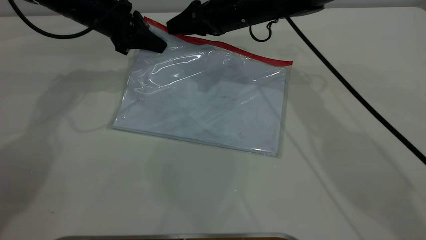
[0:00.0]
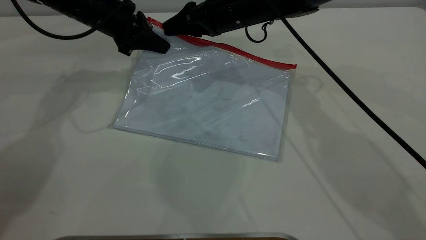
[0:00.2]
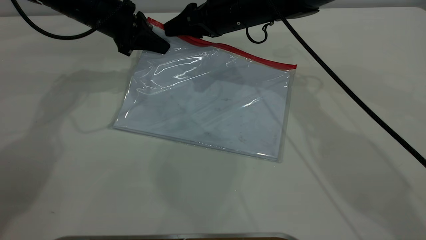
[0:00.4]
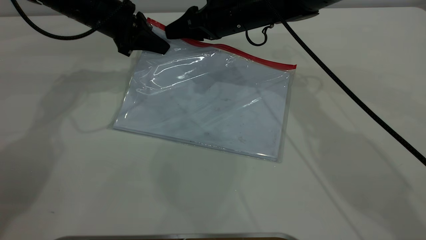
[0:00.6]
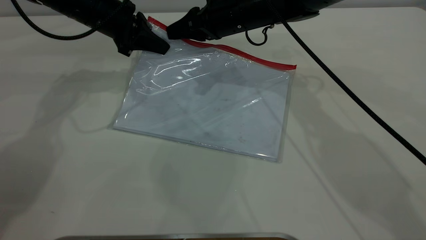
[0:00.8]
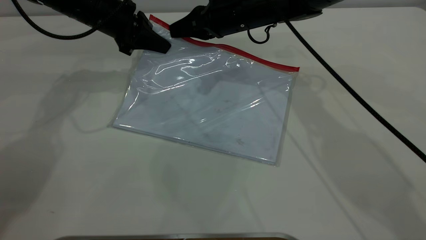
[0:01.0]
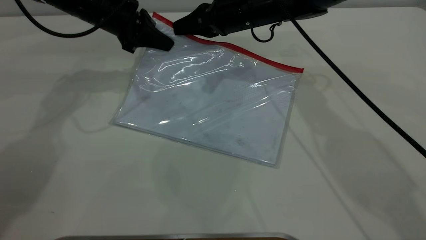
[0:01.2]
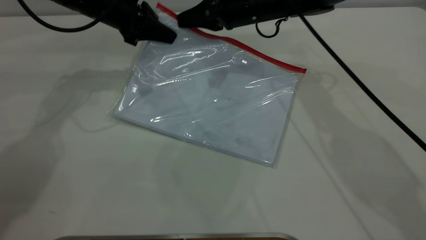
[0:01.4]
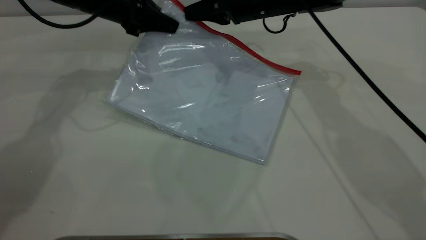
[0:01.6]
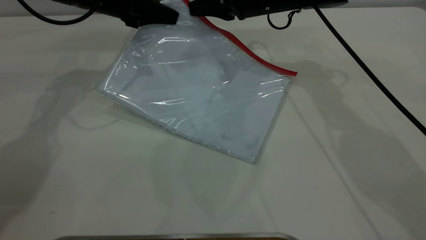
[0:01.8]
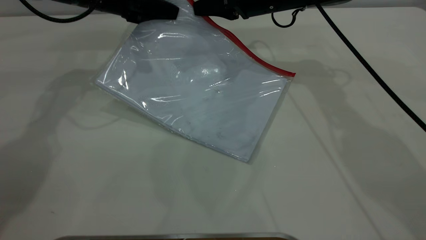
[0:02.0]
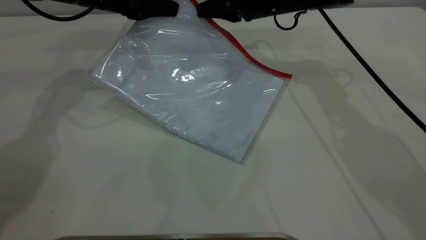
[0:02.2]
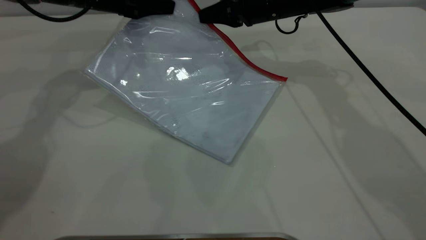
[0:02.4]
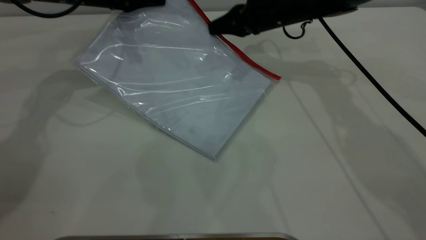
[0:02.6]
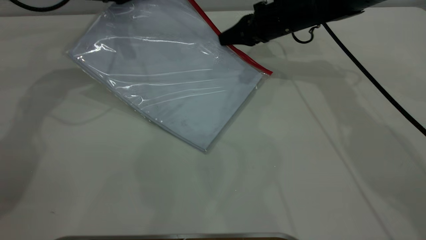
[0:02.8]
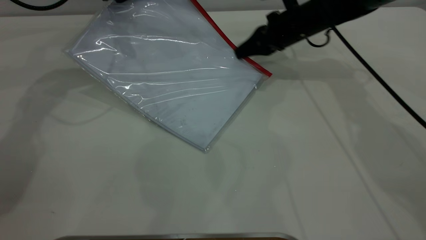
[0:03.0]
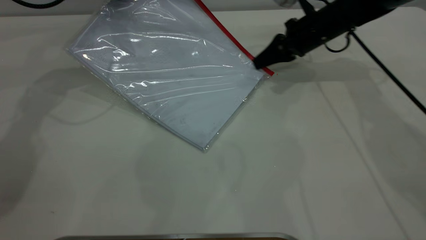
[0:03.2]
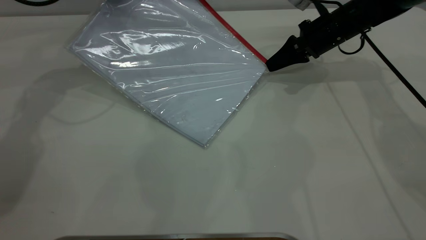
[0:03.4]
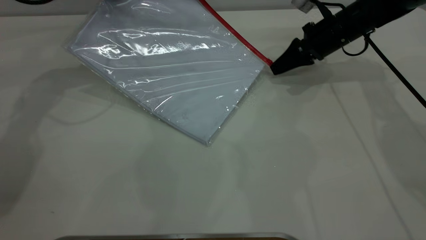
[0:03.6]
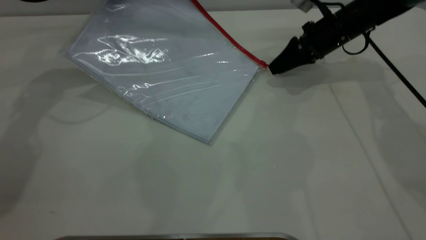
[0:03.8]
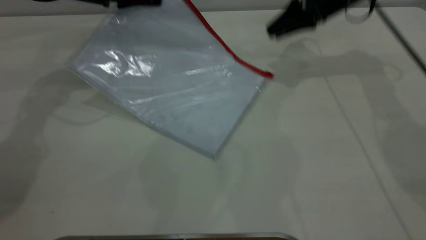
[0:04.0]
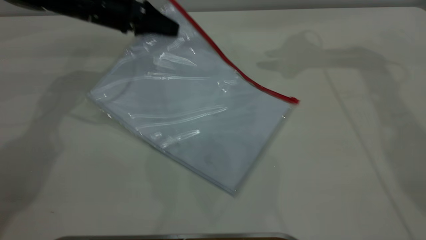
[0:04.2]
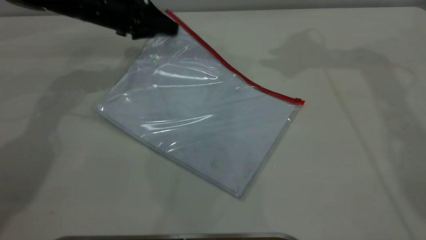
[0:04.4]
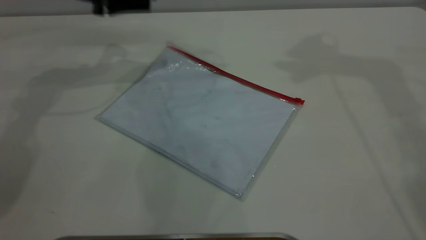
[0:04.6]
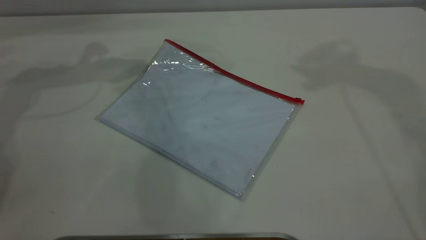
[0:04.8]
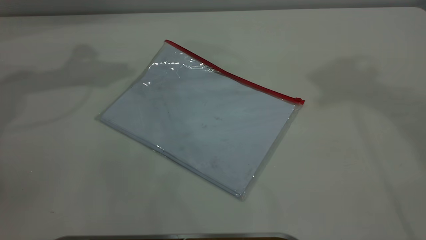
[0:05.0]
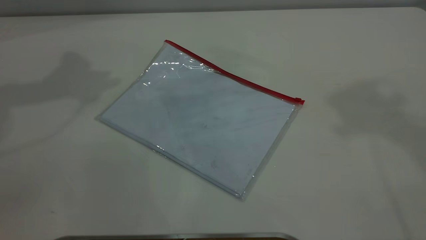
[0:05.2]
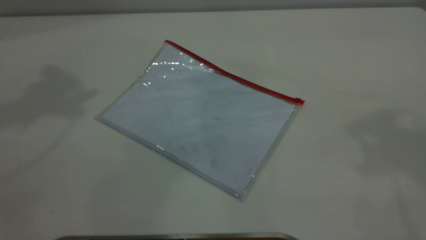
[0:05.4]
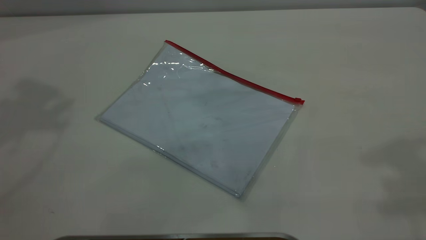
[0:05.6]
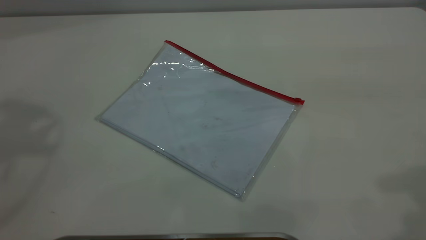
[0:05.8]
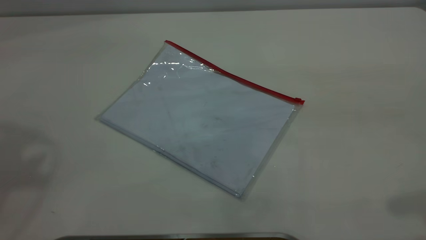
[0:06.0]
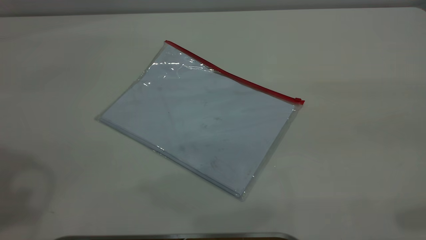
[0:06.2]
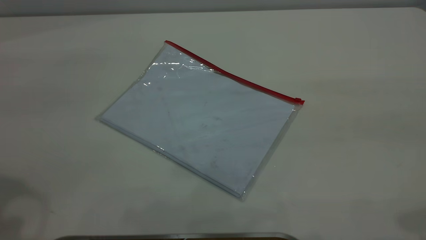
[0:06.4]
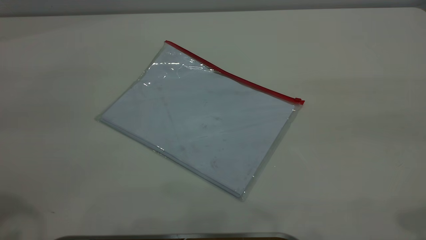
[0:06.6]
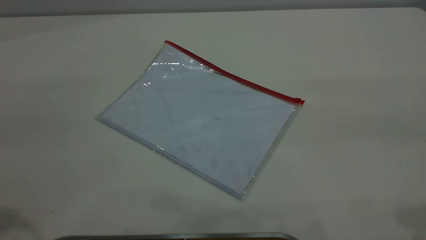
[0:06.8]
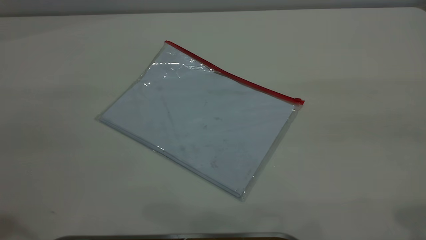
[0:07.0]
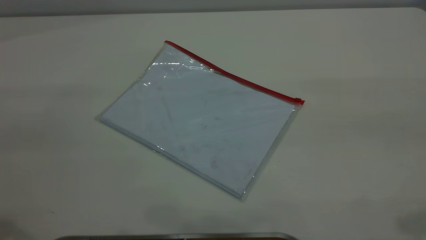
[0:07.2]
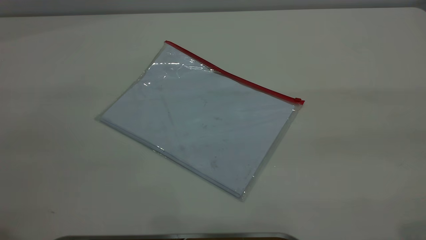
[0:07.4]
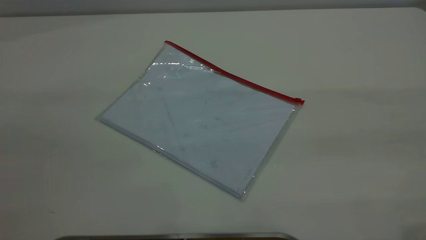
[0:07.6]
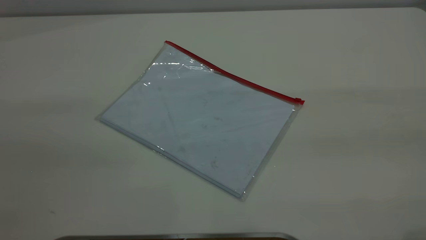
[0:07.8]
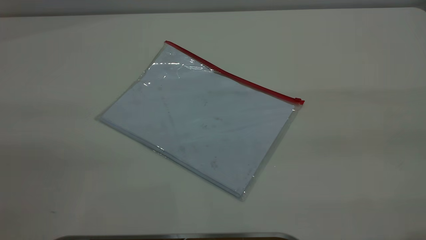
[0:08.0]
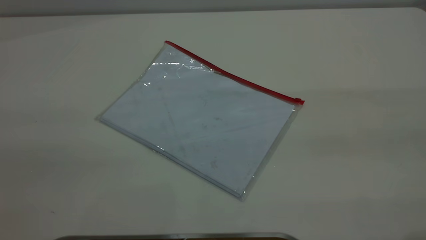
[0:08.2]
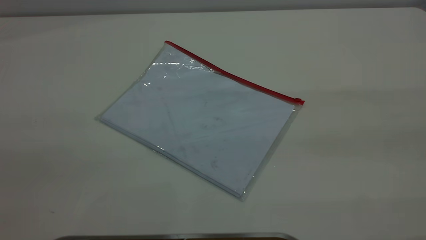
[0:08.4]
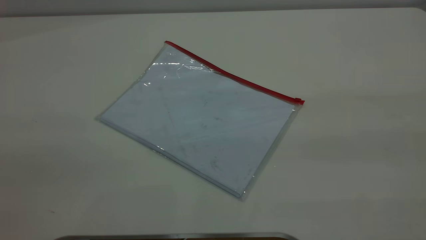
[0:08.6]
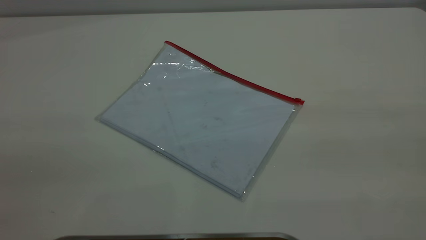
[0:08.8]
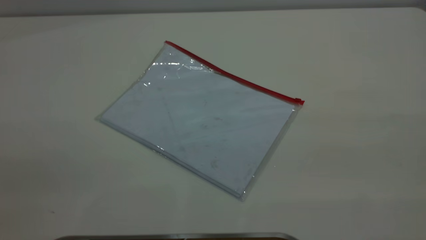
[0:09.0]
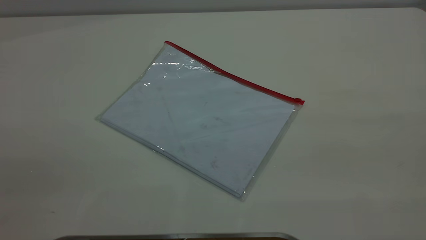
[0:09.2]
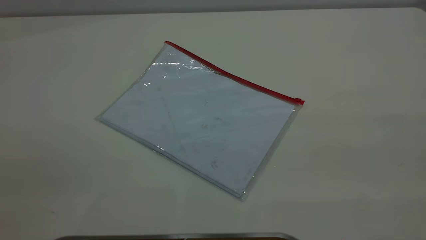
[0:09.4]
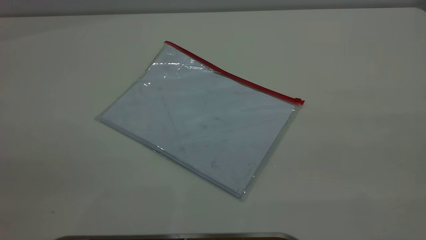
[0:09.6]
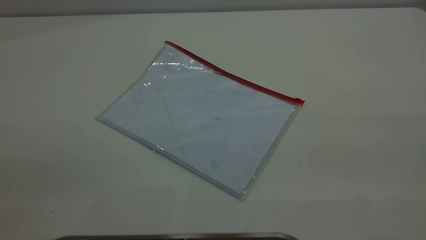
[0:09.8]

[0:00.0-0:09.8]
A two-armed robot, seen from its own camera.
Step, 0:00.0 to 0:03.8: Pulling up the zipper on the transparent plastic bag with the right gripper to close it.
Step, 0:04.0 to 0:04.6: Place the transparent plastic bag.
0:00.0 to 0:01.4: The right gripper closes up.
0:01.4 to 0:02.8: The right gripper is displaced to the right by some 5 cm.
0:02.8 to 0:04.2: The right gripper goes approximately 20 cm upward and to the right, and opens up. The left gripper changes place by about 5 cm.
0:04.2 to 0:05.6: The right gripper travels backward and upward by roughly 35 cm. Meanwhile the left gripper shifts approximately 40 cm upward, and opens up.

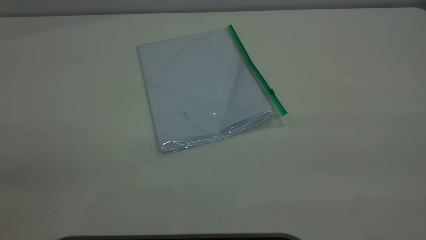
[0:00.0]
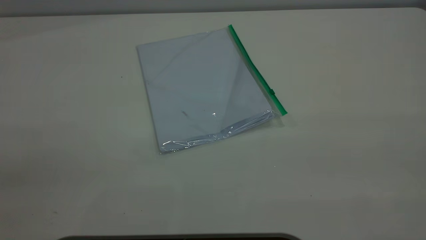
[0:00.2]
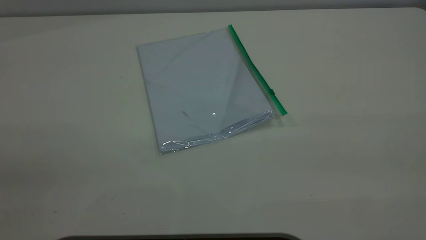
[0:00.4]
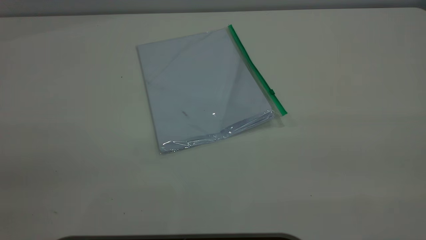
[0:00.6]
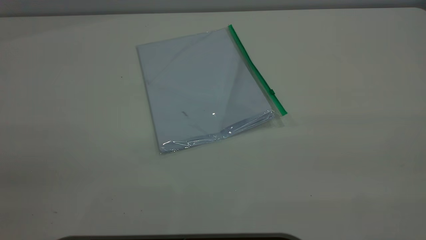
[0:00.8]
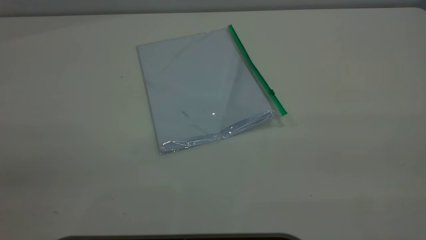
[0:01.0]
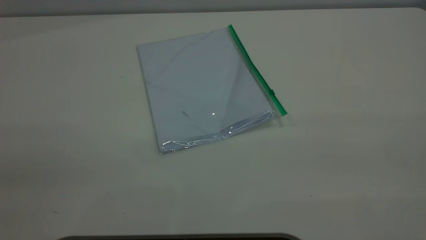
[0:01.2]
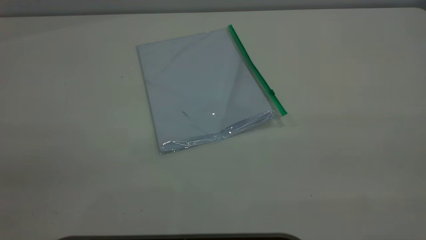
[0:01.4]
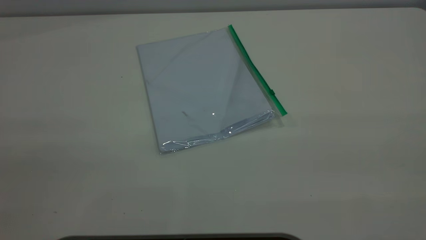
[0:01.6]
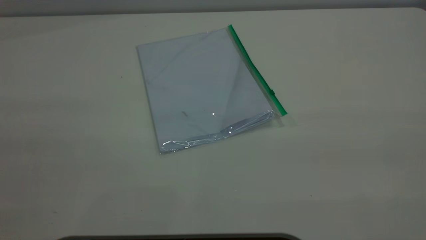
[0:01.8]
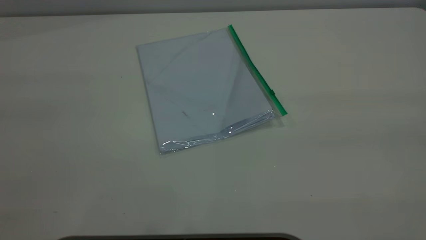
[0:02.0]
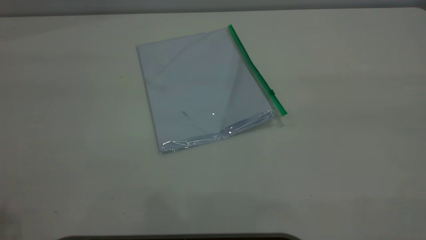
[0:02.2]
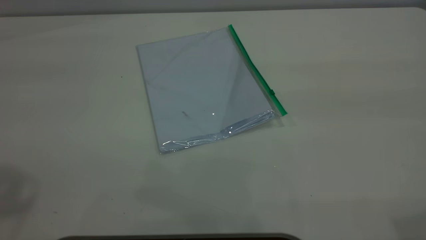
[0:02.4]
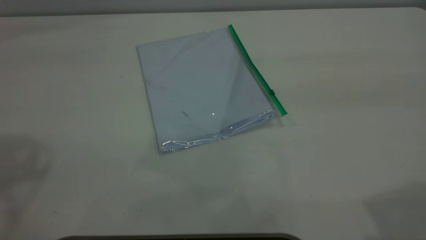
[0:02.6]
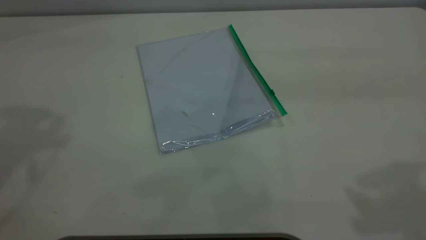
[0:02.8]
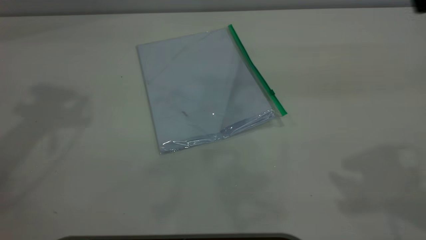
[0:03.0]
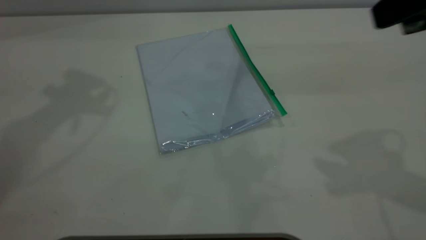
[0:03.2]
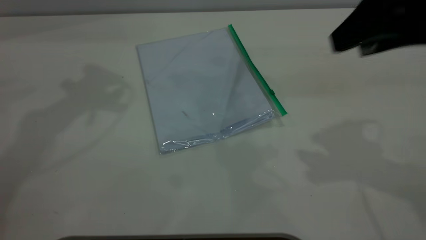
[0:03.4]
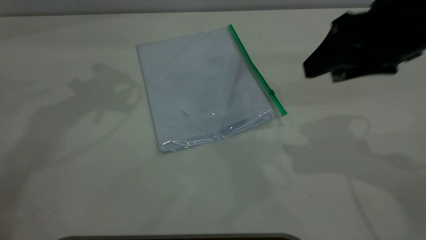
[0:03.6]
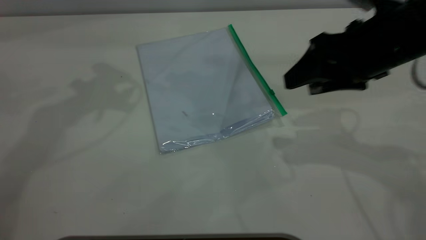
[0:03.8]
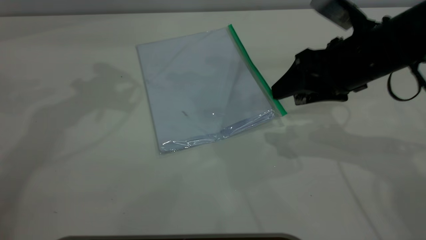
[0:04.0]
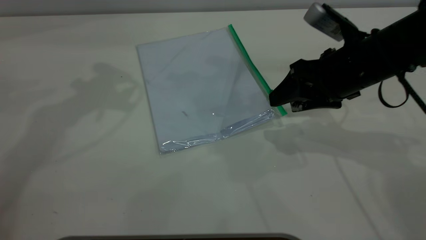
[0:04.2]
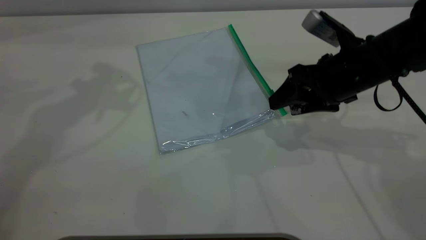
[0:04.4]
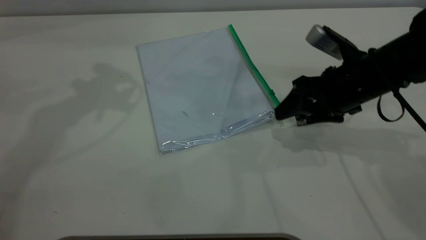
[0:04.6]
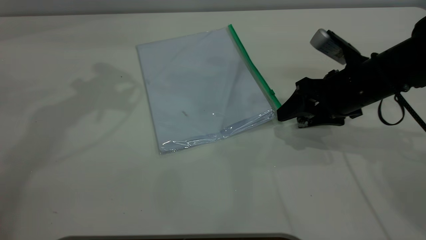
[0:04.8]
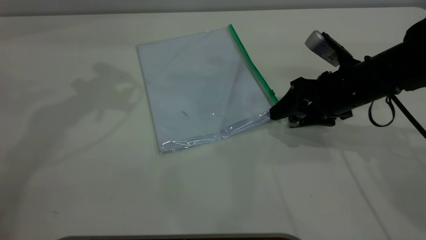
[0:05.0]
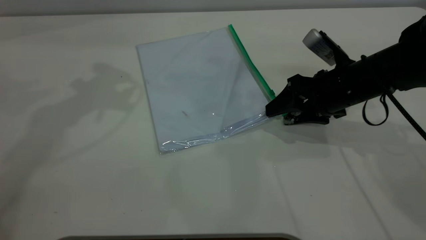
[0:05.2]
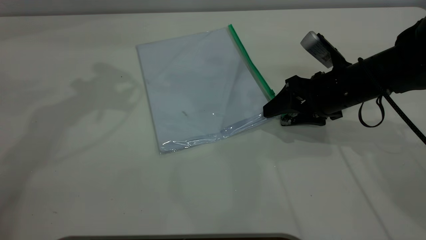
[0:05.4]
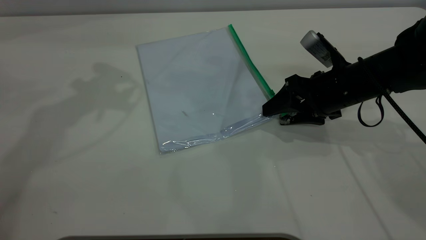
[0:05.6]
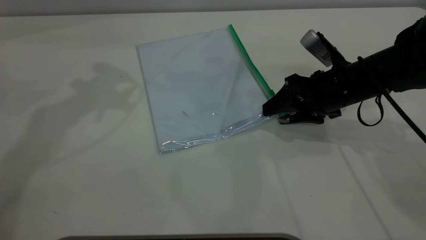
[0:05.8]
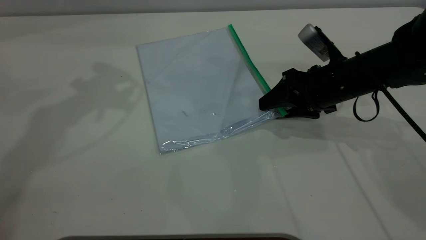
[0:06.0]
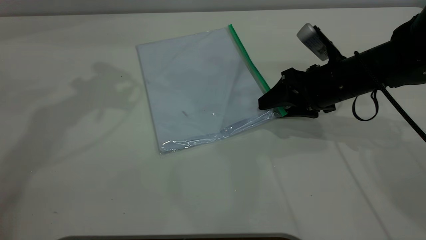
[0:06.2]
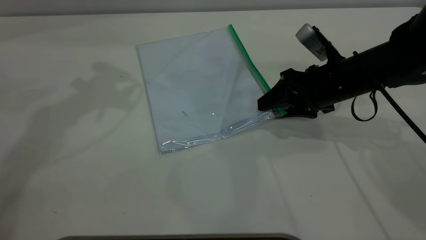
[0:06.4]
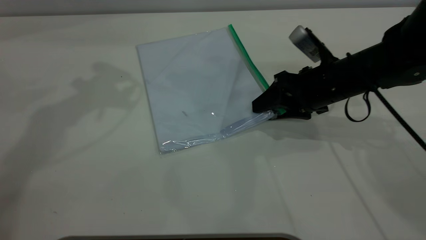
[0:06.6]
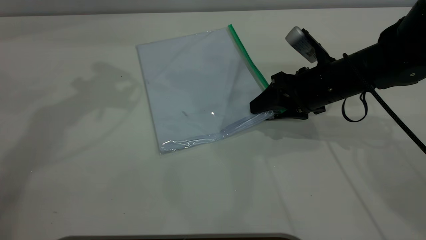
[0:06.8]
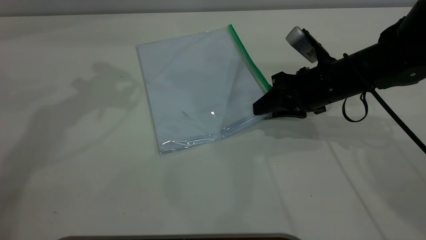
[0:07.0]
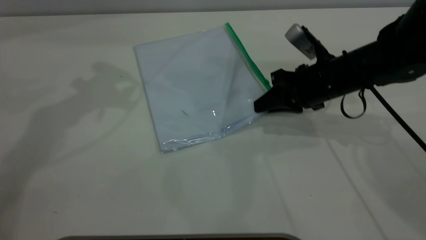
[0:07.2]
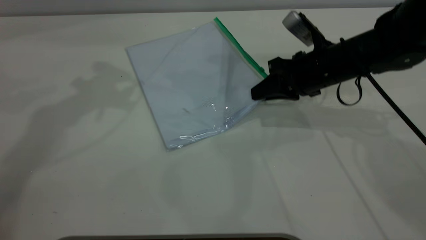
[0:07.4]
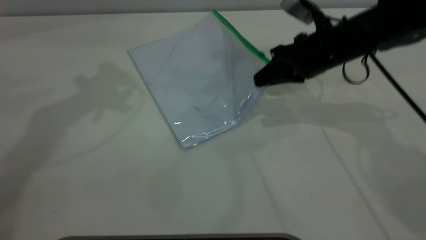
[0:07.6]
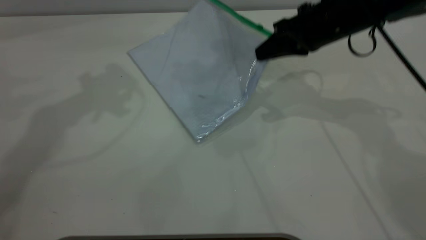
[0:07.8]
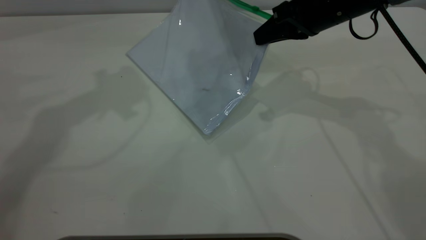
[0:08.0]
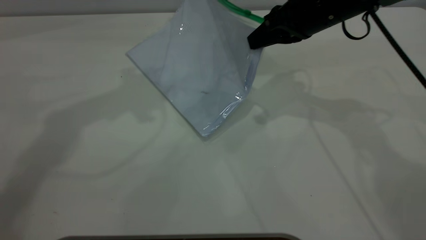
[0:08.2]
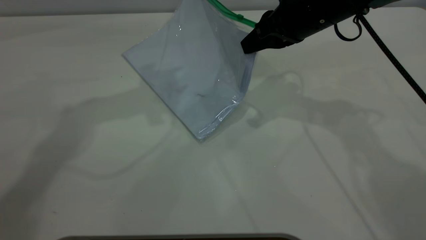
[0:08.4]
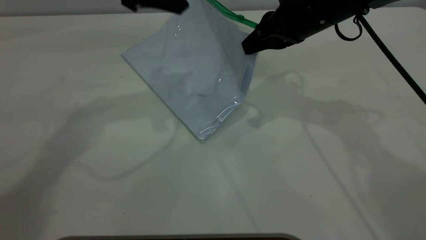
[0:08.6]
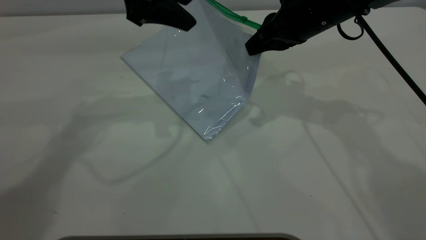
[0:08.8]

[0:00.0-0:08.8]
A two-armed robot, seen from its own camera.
Step, 0:00.0 to 0:07.4: Pick up the transparent plastic bag with the right gripper.
0:00.0 to 0:01.4: Neither gripper changes place.
0:03.0 to 0:04.4: The right gripper travels downward and forward by roughly 25 cm, while the left gripper moves downward, forward and to the right, roughly 10 cm.
0:04.4 to 0:05.8: The grippers move only a little.
0:05.8 to 0:07.4: The right gripper closes up.
0:07.4 to 0:08.8: The left gripper heads to the right and downward, covering approximately 10 cm. The right gripper is displaced upward by about 10 cm.
